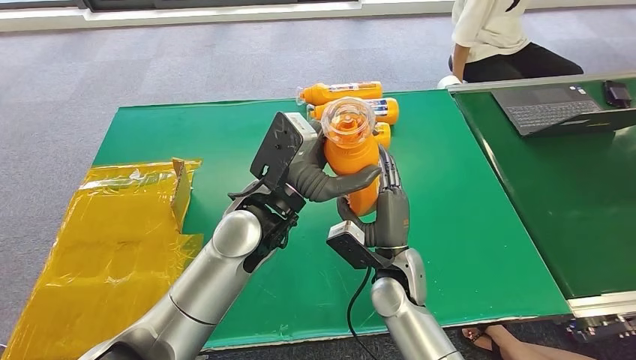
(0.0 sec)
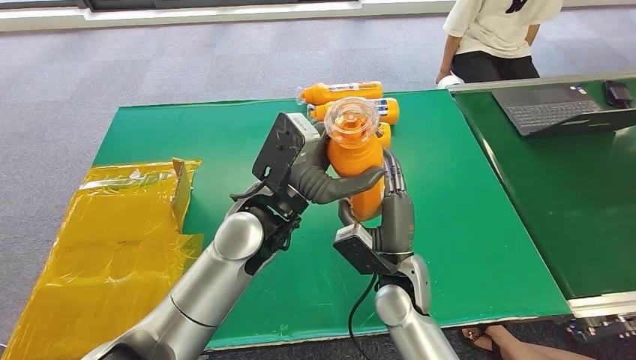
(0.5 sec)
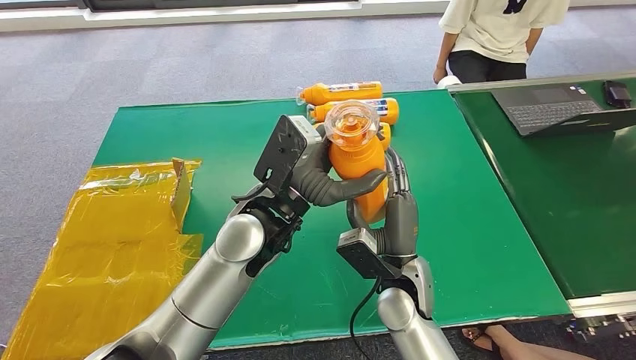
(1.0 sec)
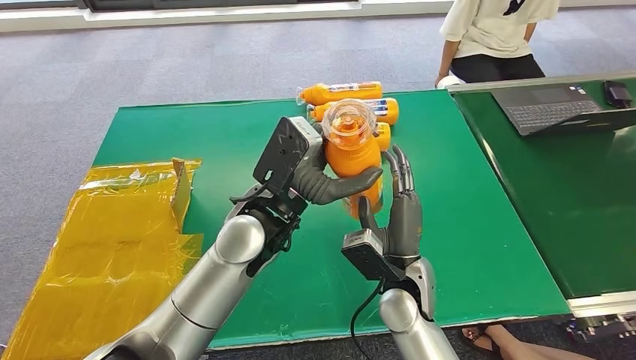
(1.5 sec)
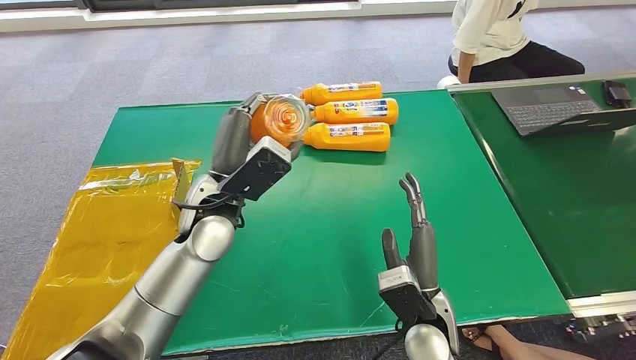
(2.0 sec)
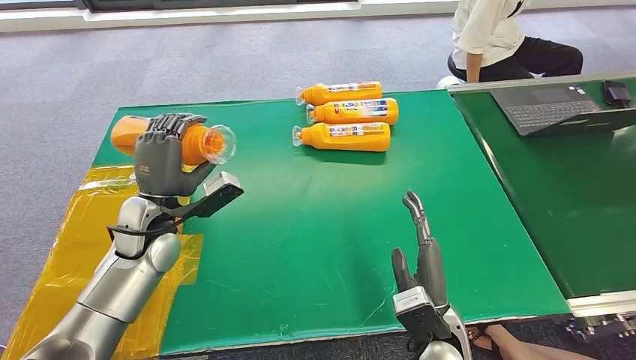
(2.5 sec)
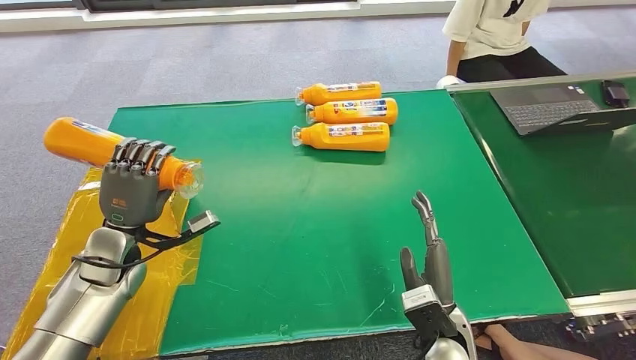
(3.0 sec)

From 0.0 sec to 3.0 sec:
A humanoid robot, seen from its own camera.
Step, from 0.0 sec to 3.0 sec: Turn the bottle to the front side.
From 0.0 sec to 1.5 sec: The hands move only a little.
